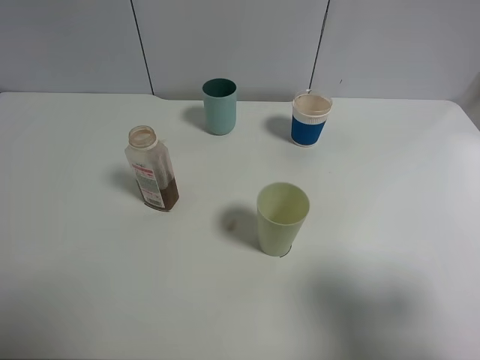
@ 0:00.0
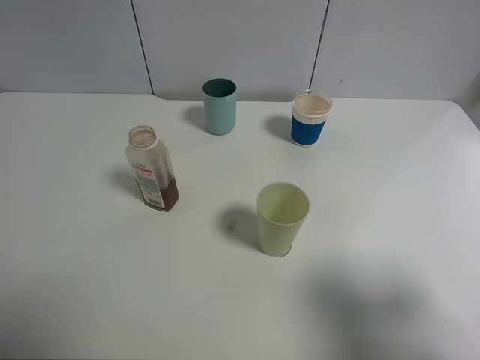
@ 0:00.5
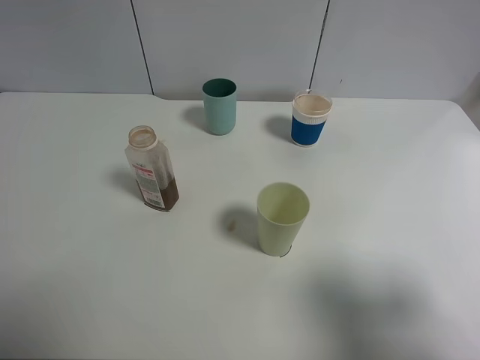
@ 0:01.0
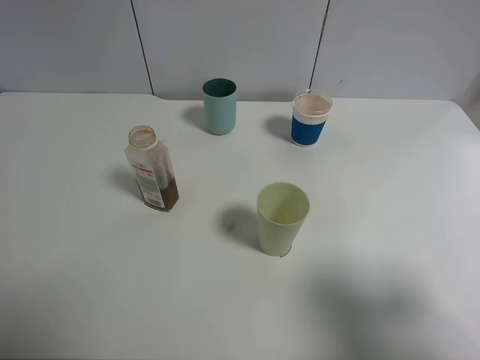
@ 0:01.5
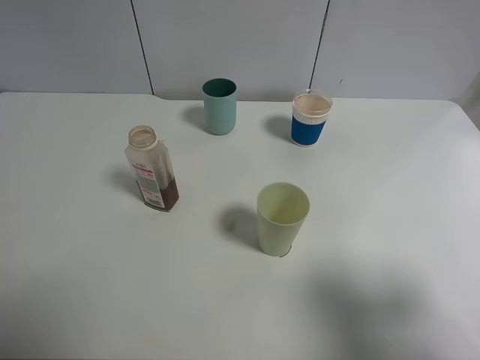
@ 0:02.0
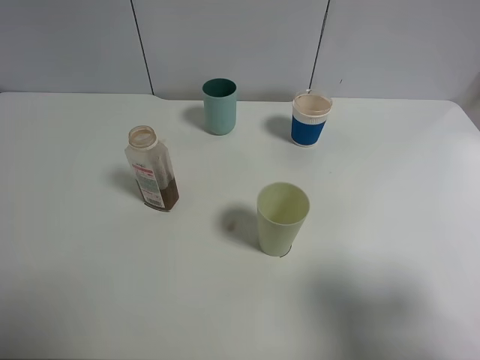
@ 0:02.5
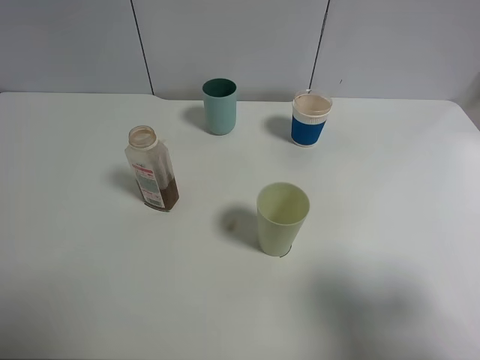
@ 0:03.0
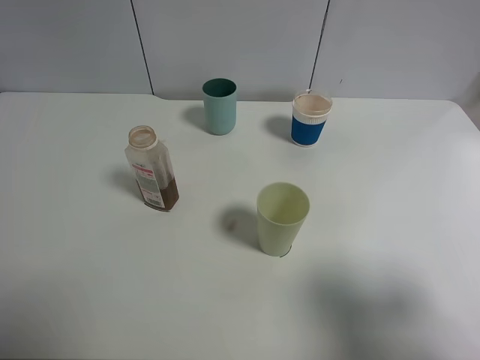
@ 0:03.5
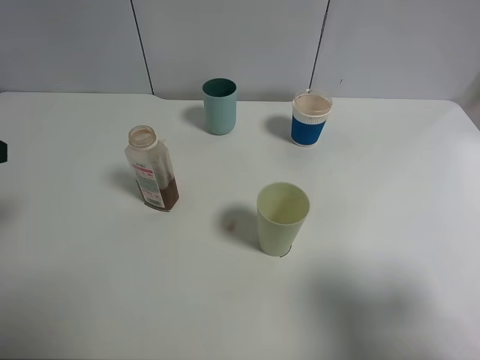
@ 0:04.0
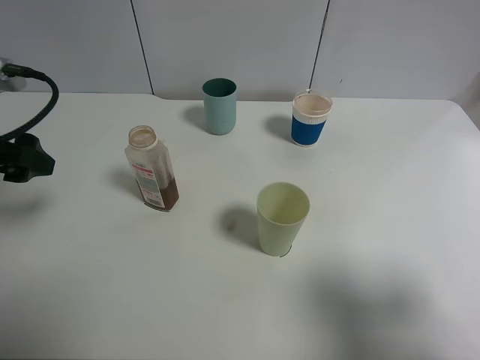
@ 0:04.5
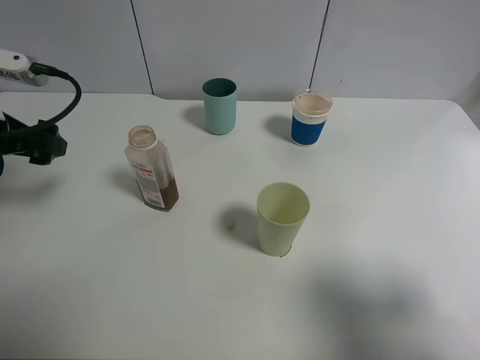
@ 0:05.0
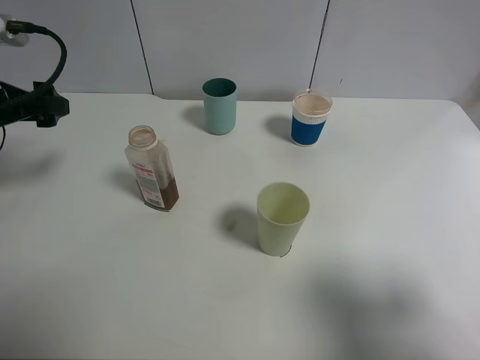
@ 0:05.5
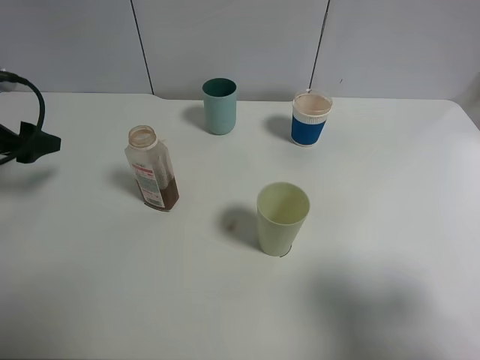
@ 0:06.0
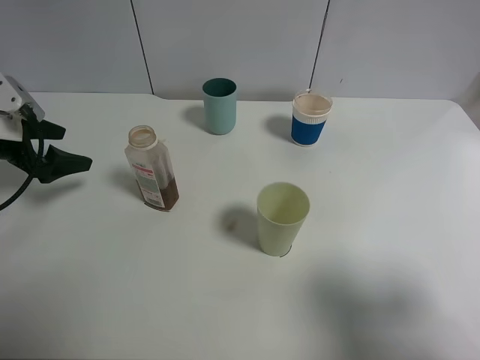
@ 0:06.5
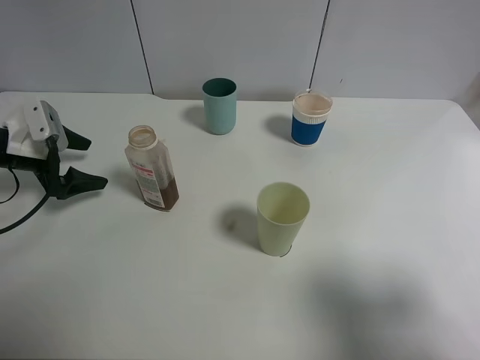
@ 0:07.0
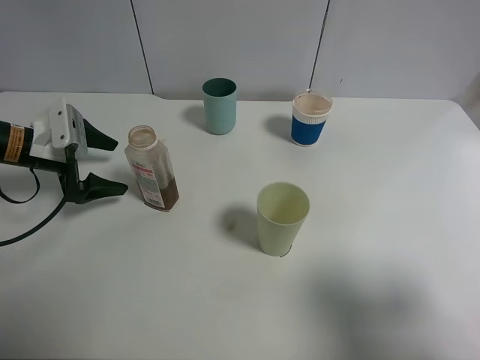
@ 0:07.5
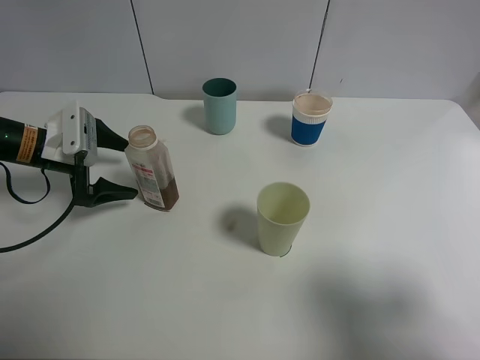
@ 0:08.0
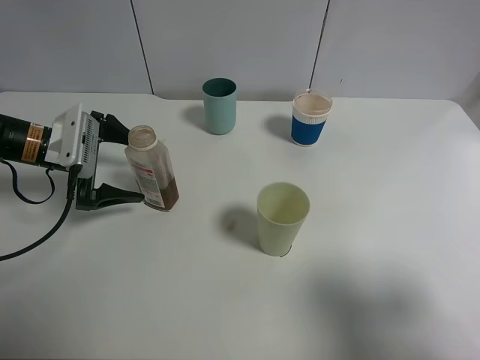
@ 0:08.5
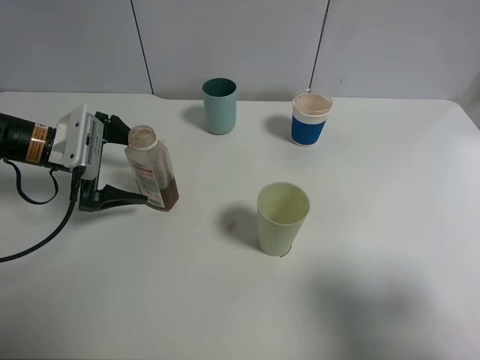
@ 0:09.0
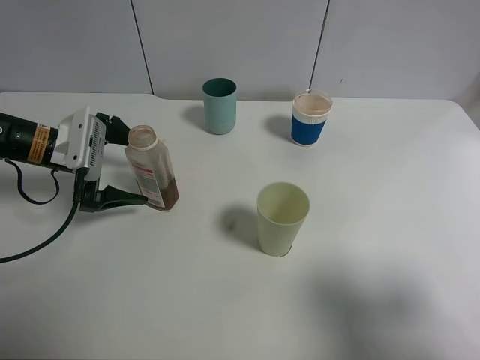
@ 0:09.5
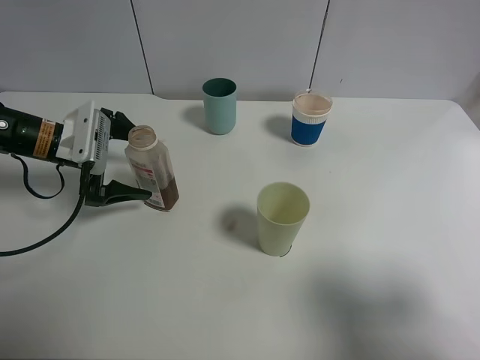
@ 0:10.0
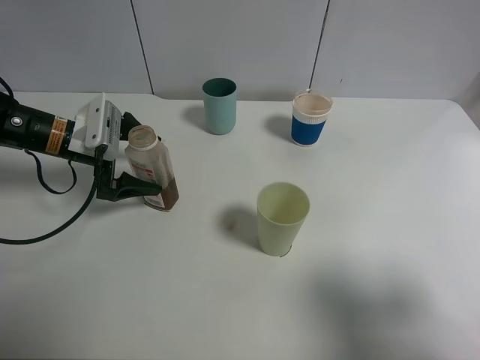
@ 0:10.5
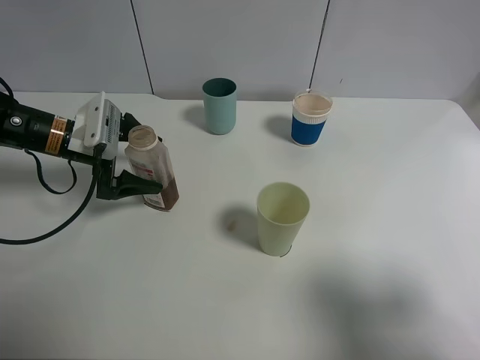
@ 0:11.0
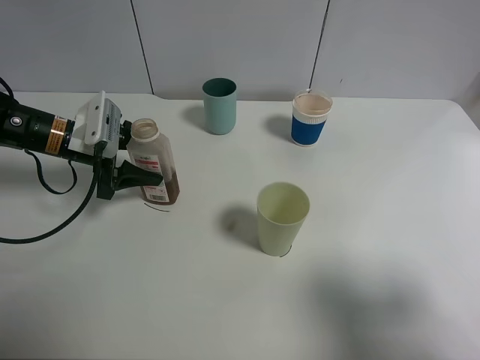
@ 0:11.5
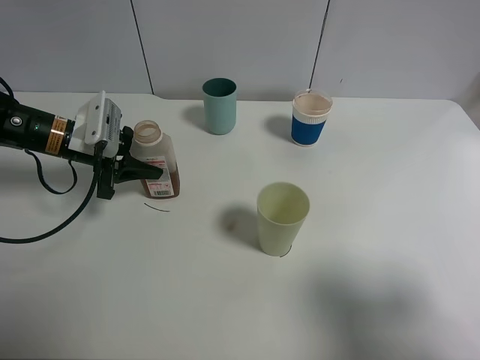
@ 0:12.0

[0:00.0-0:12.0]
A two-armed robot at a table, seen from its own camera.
Task of the whole recording: use a clamp to hold the bottle of the drink, pour the beverage into a random cup, then clamp the cup containing the drink and pour the drink into another random cup.
0:00.0 to 0:02.0: The two grippers keep their place.
0:04.0 to 0:06.0: The left gripper is displaced forward, downward and to the left by roughly 15 cm.
0:06.0 to 0:08.0: The left gripper travels to the right and downward by approximately 10 cm.
0:08.0 to 0:10.0: There are only small adjustments of the grippers.
0:10.0 to 0:12.0: The left gripper closes its fingers.

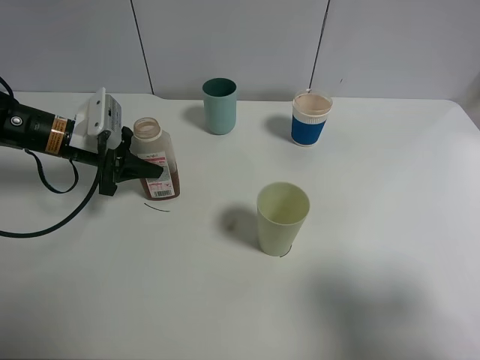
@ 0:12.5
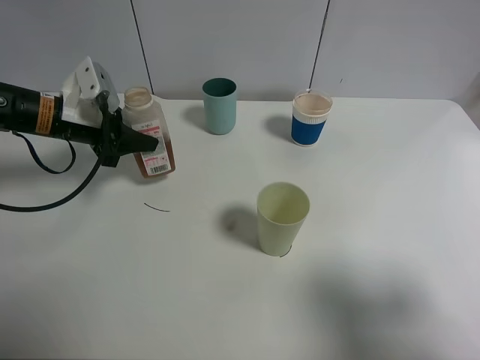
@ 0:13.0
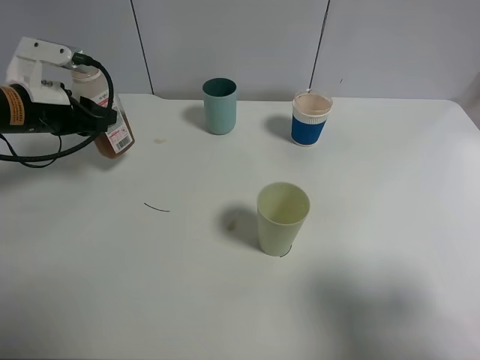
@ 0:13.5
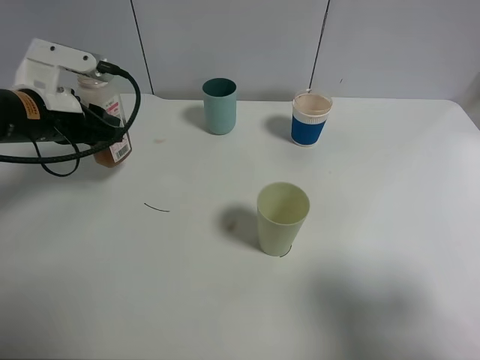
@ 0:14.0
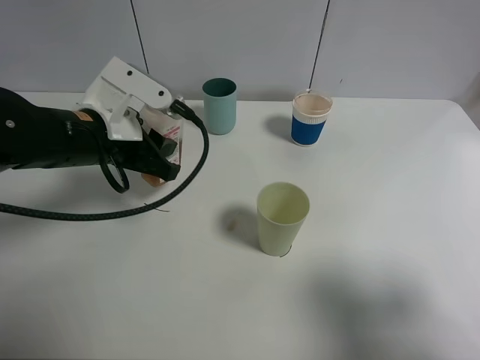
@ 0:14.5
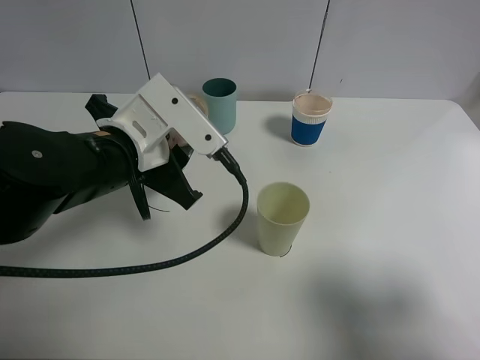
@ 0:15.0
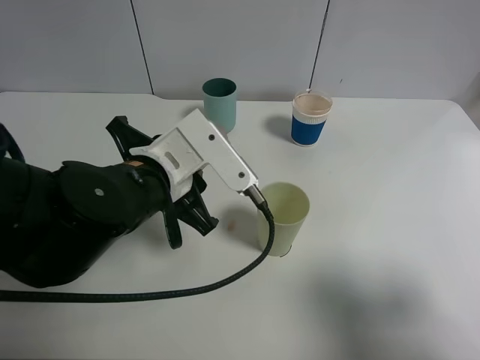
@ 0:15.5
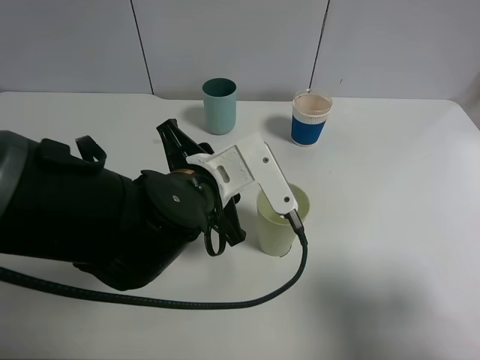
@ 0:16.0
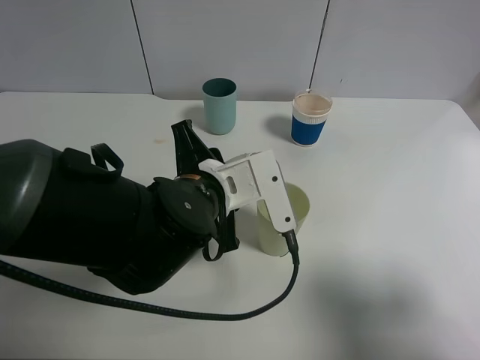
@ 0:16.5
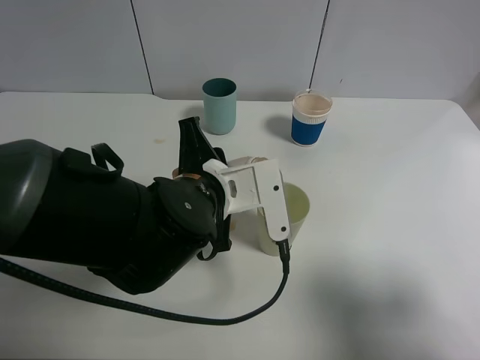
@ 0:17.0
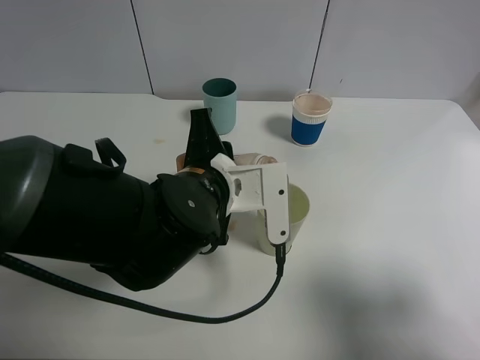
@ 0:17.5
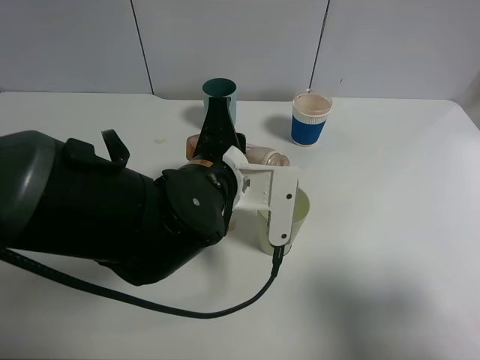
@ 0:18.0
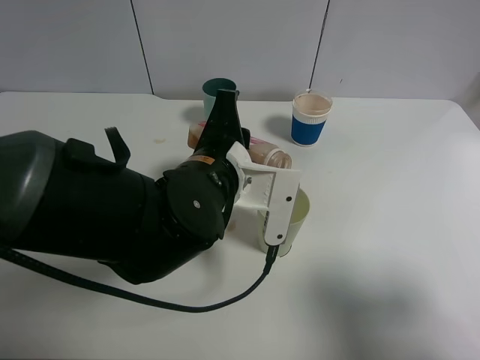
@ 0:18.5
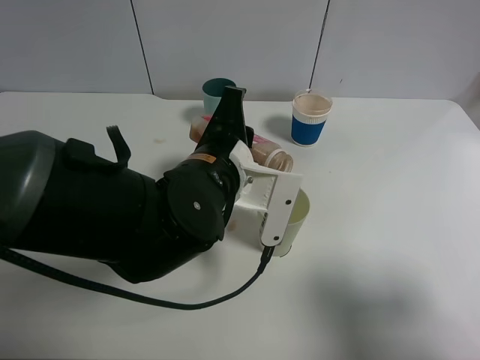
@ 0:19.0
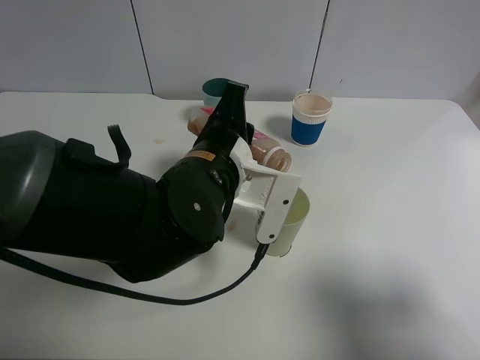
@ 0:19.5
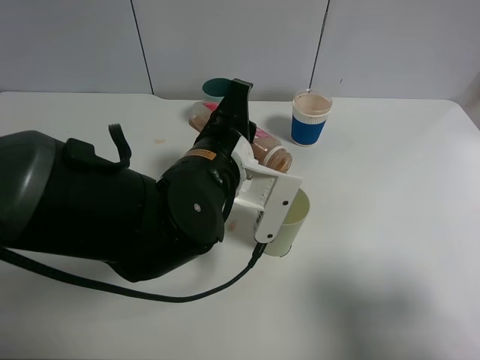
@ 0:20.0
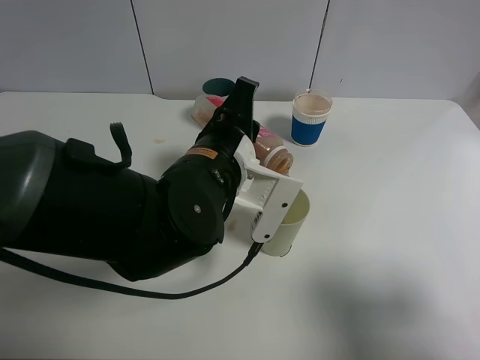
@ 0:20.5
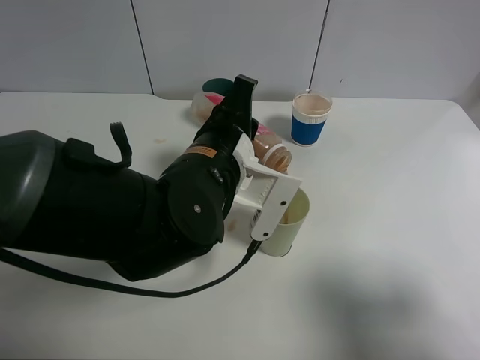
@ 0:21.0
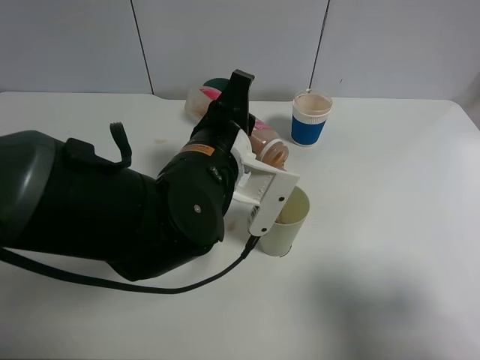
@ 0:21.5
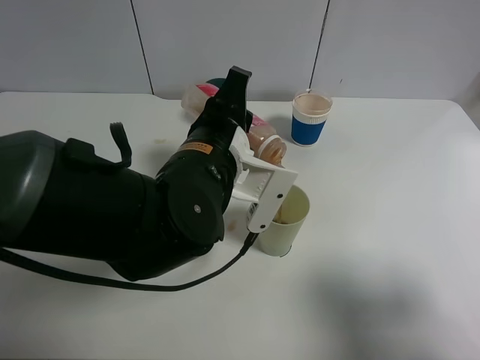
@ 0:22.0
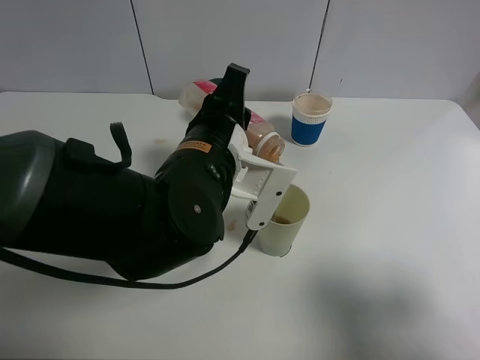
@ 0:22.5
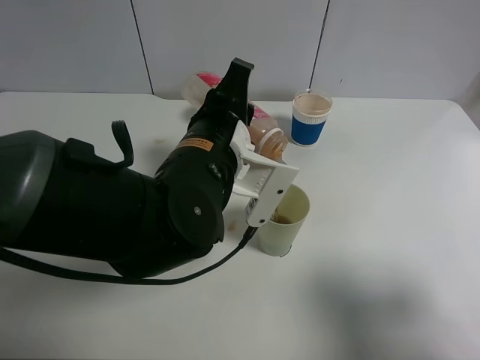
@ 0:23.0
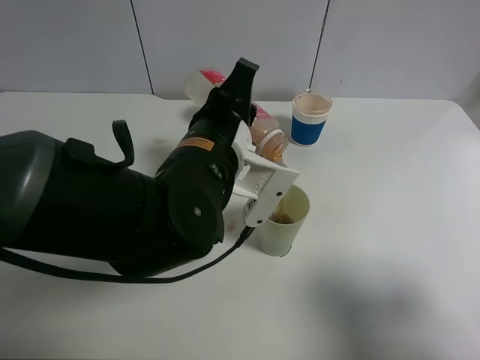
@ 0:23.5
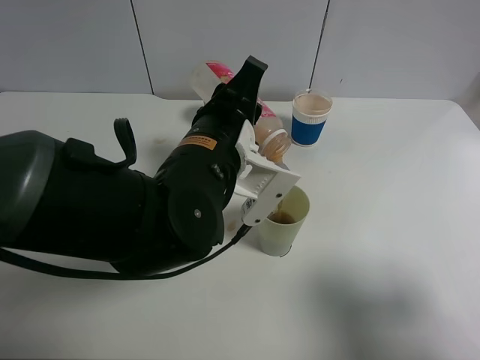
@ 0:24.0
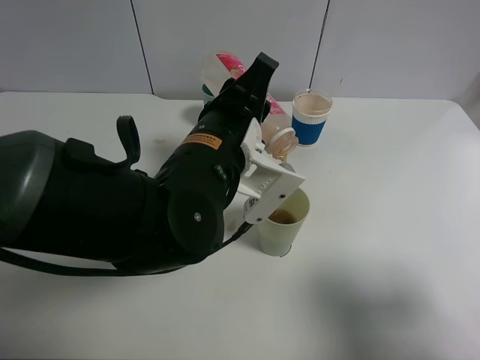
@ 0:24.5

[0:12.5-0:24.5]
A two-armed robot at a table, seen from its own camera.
Task of the whole recording: use a clamp to hold the bottle of the drink, pour the beverage into a random cup, then clamp the cup containing the drink and pour the drink into another random cup.
0:12.5 to 0:14.5: The left gripper is displaced to the right, backward and upward by approximately 15 cm.
0:14.5 to 0:16.5: The left gripper moves to the right and backward, some 15 cm.
0:18.5 to 0:22.5: The grippers make only small movements.
0:22.5 to 0:24.5: There are only small adjustments of the grippers.

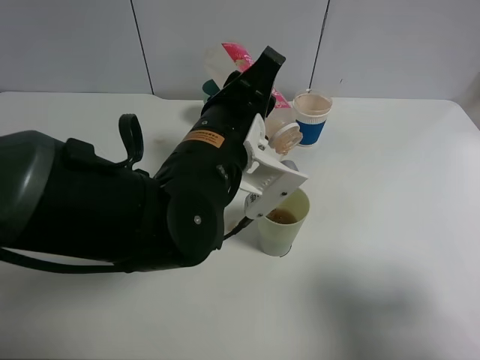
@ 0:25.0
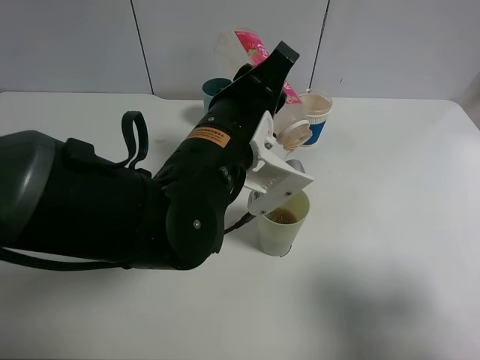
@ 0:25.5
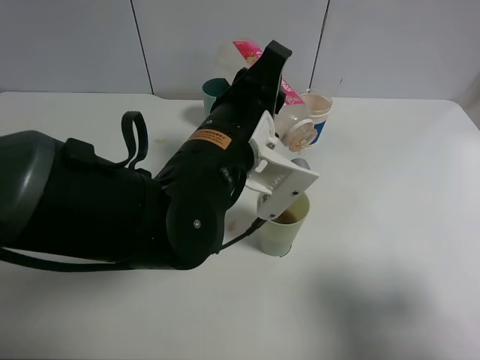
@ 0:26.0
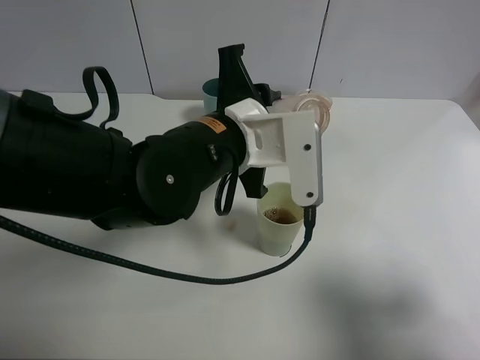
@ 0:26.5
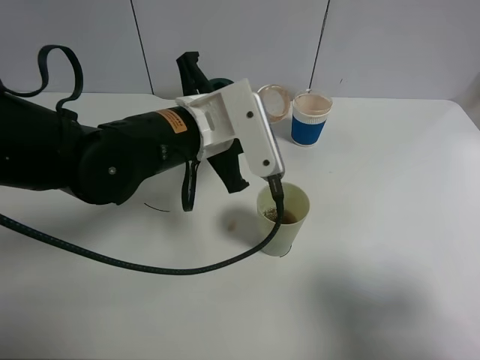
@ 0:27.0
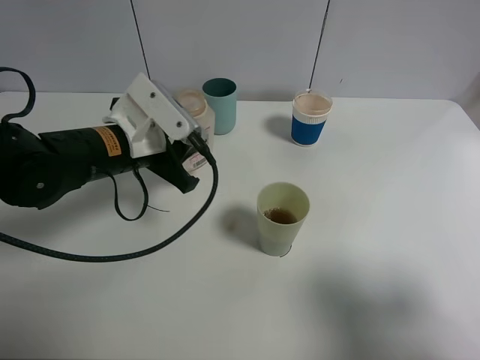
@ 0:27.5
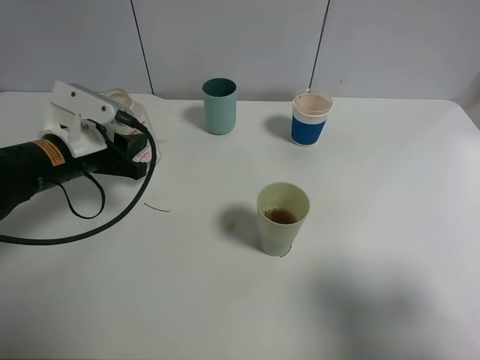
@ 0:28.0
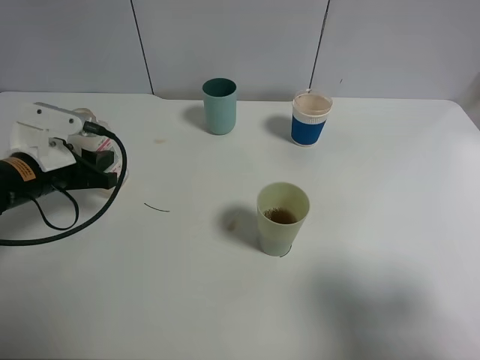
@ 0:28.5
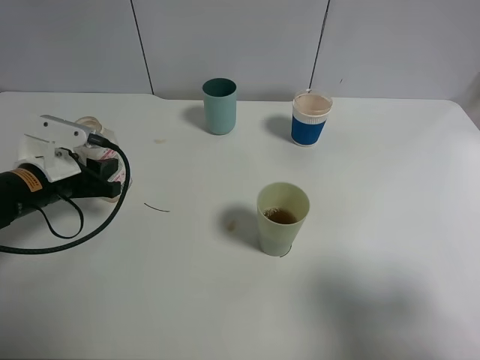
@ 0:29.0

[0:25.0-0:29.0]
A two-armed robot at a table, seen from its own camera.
Task of the whole recording: use a clamp to hold the bottle of the drink, pour the beverage into a random cup, then clamp the cup containing the drink and pour the drink into another random cup.
Step, 0:25.0 to 0:27.0: Pour the drink into the green plastic cup with left gripper.
0:25.0 to 0:27.0: The left gripper shifts by roughly 5 cm.
0:27.0 to 0:29.0: The left gripper shifts about 20 cm to the left and downward.
